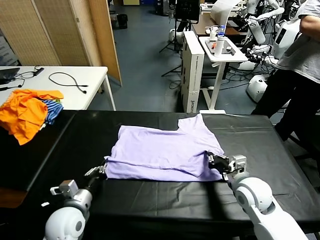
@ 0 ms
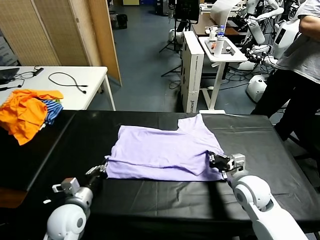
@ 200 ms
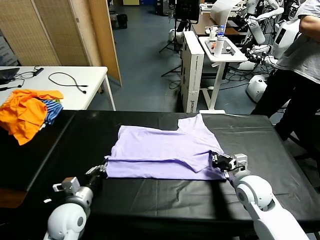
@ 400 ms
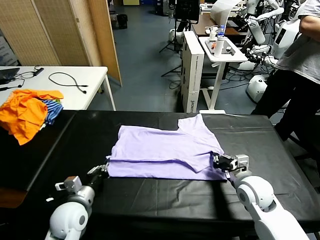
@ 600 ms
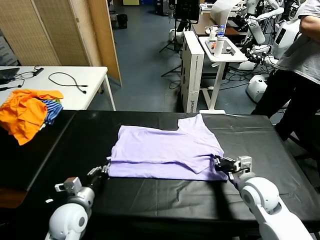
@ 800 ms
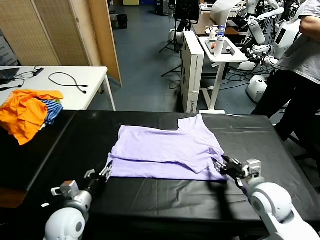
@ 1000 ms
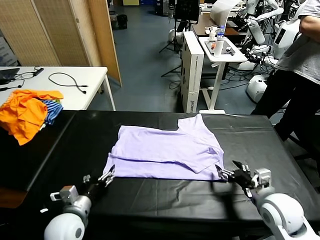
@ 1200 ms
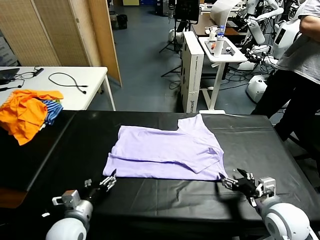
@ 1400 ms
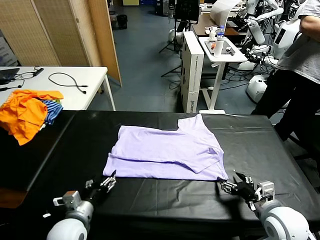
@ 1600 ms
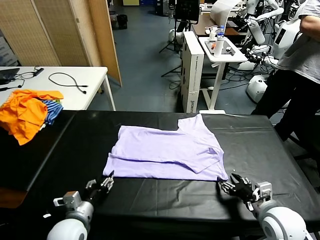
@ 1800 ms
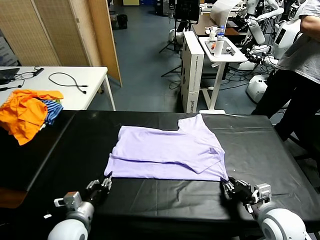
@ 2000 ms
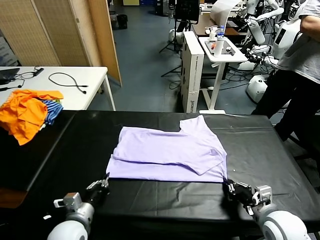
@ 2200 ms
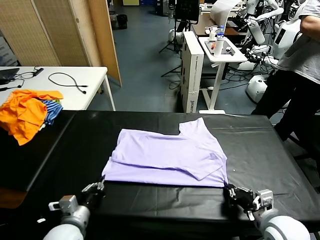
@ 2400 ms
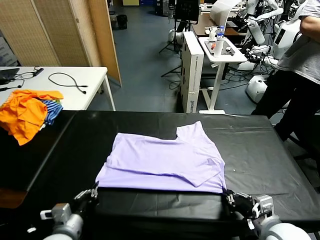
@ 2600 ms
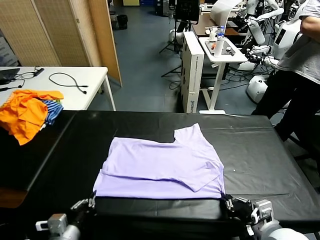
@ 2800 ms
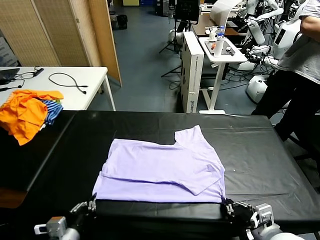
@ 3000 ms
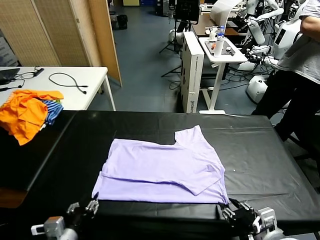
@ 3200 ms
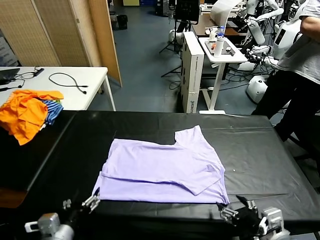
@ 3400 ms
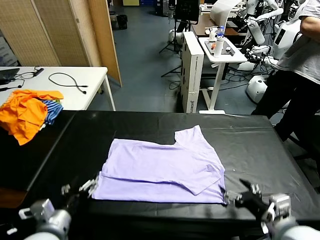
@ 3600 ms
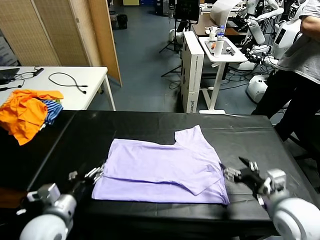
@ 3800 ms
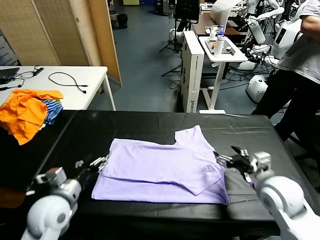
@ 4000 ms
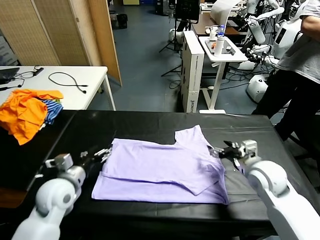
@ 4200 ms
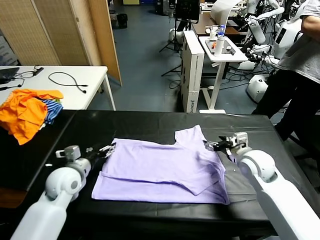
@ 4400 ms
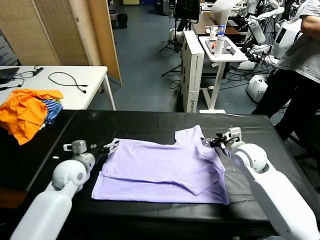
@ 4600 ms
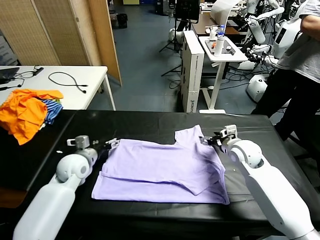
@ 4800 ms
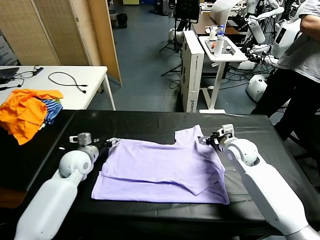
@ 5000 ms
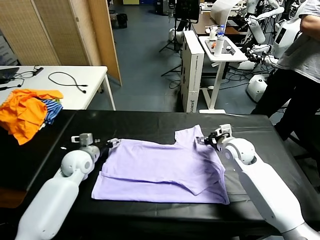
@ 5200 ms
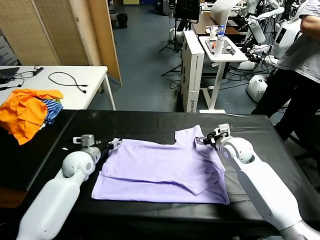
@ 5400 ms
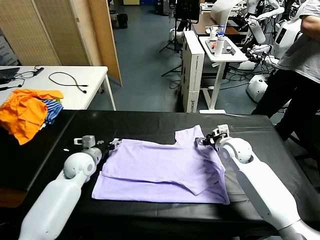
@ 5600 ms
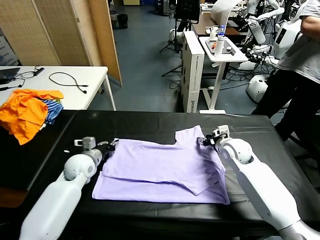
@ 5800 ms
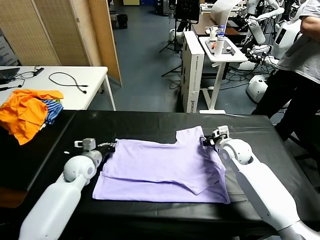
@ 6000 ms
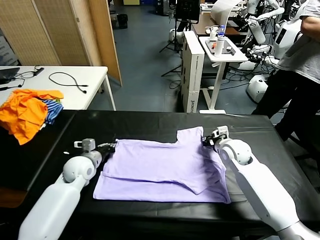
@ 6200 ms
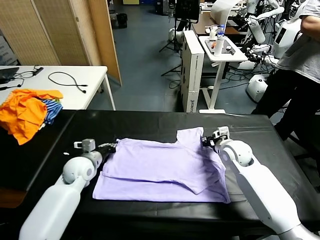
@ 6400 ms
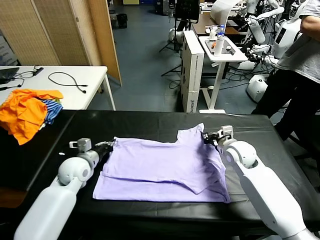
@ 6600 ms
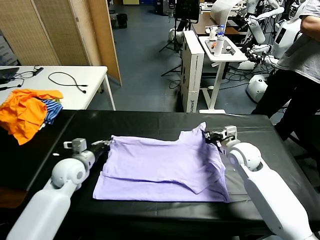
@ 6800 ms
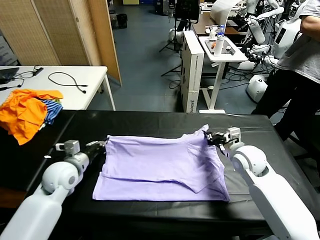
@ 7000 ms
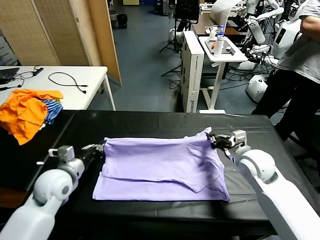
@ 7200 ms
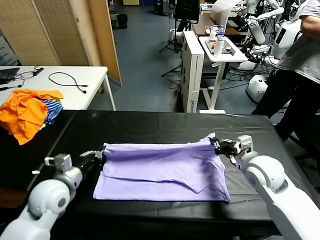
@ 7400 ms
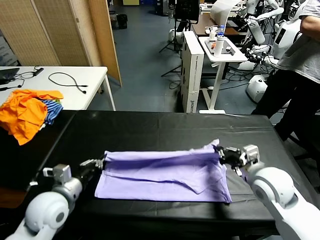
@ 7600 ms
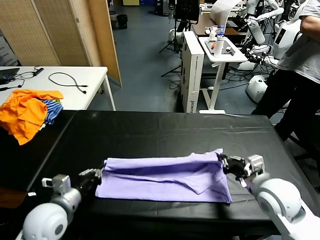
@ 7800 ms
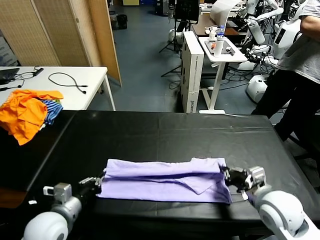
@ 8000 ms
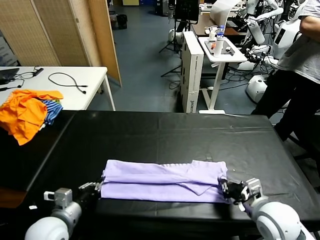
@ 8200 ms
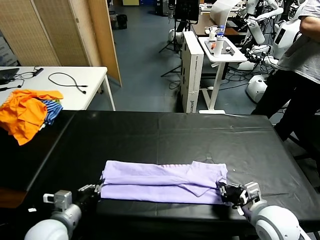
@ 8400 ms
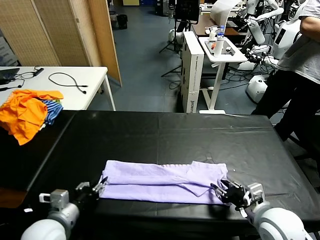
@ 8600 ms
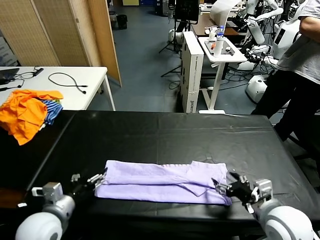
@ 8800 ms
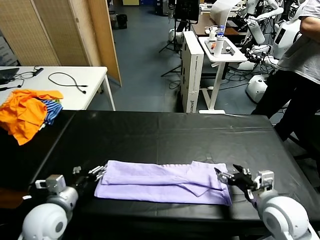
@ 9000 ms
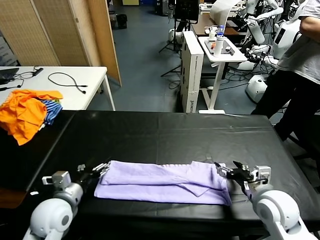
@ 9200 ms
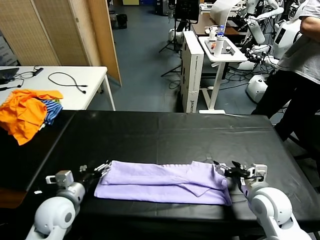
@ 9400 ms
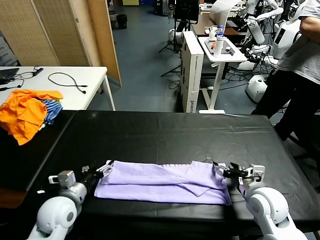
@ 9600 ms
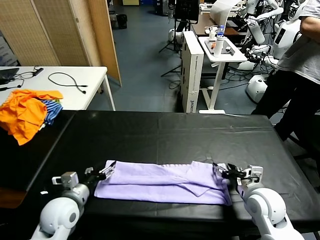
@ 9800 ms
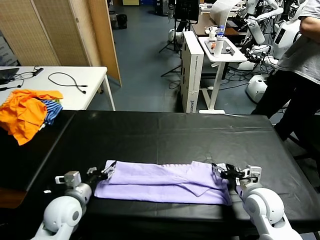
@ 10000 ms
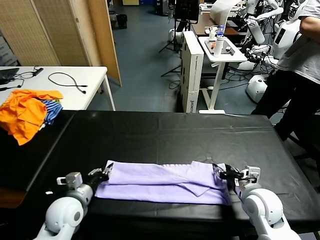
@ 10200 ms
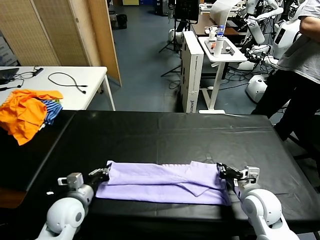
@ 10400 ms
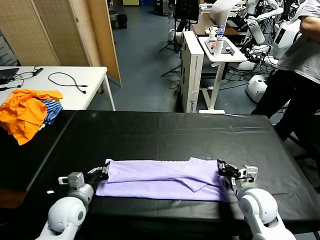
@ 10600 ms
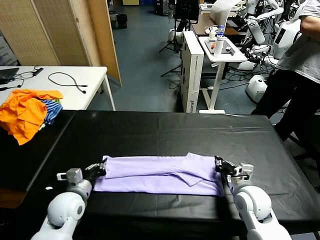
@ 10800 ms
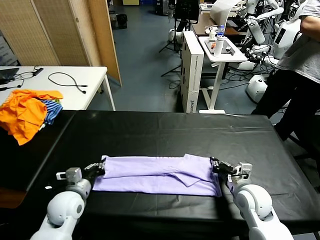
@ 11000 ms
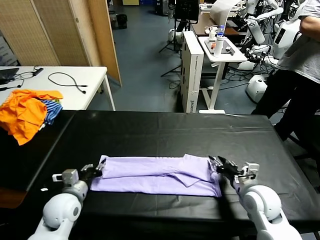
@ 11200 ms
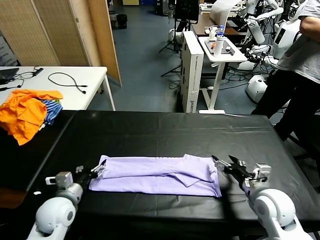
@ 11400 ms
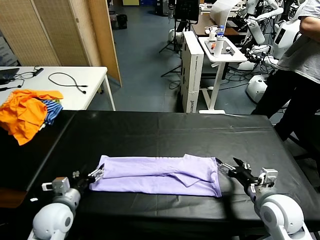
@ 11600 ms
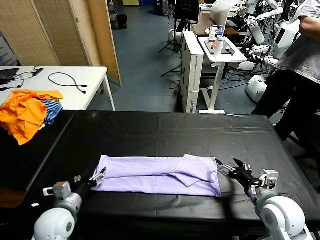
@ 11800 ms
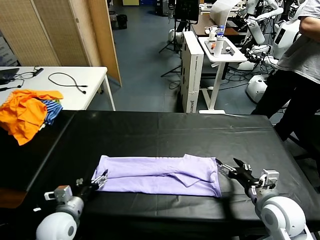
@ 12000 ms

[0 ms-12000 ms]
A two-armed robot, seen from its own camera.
Task of the whole recording: fold and organize the clothes.
Step, 1200 ms to 3400 ms: Drag the clothes downward with both gripper.
Step, 3600 ms to 6000 ms: use both grippers simultaneously to clamp the upper edge of the clothing fabric.
Step, 6200 ms to 11400 ms: use both grippers to drag the upper edge of the fabric backward and fold it over the lower edge.
0 ms to 1600 ms: The left gripper opens up; the right gripper goes some 10 cm backward and to the right, and opens.
1600 ms to 3000 ms: The two grippers go about 10 cm backward. The left gripper closes up. The right gripper closes, then reopens.
3000 ms to 4400 ms: The grippers both shift forward by roughly 25 cm. The left gripper opens up. Meanwhile the right gripper opens.
4400 ms to 6000 ms: The two grippers go some 5 cm forward. The right gripper closes up; the left gripper closes up.
6000 ms to 7600 ms: The grippers both shift backward and upward by some 15 cm.
7600 ms to 9000 ms: The right gripper shifts roughly 10 cm backward, and opens. Meanwhile the left gripper opens.
9000 ms to 10400 ms: The right gripper travels forward and downward by roughly 10 cm, and closes its fingers, while the left gripper travels downward by about 5 cm, and closes its fingers.
10400 ms to 12000 ms: The right gripper changes place by roughly 5 cm, and opens. The left gripper opens.

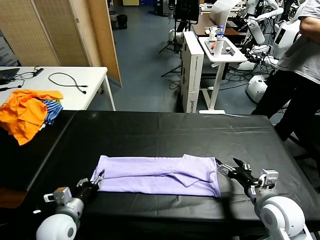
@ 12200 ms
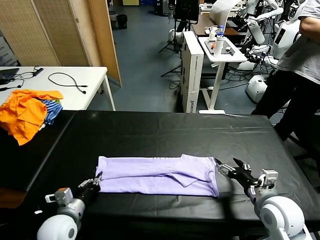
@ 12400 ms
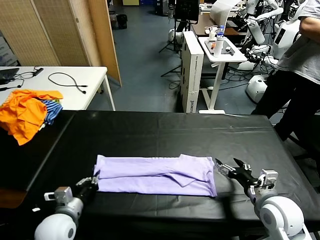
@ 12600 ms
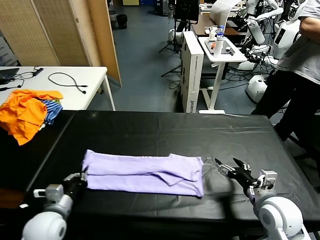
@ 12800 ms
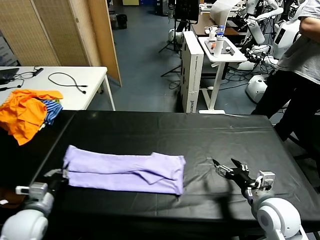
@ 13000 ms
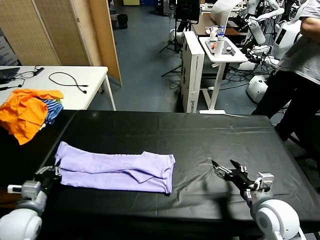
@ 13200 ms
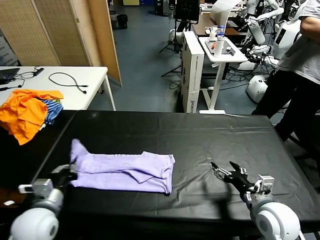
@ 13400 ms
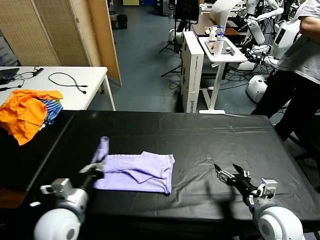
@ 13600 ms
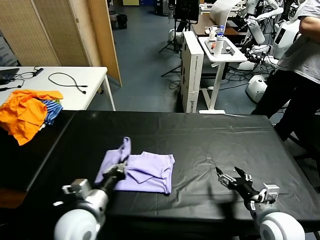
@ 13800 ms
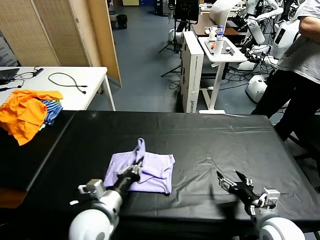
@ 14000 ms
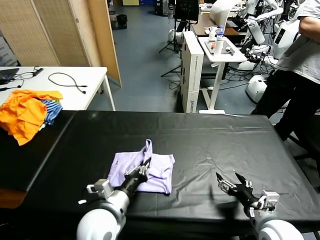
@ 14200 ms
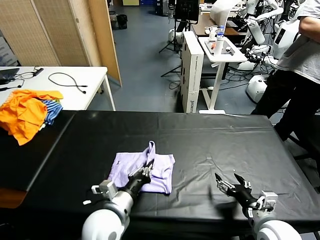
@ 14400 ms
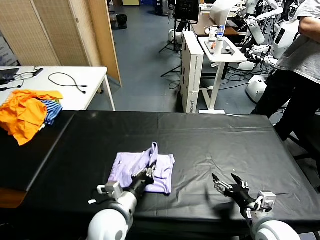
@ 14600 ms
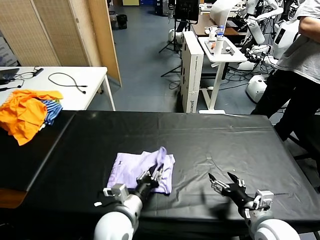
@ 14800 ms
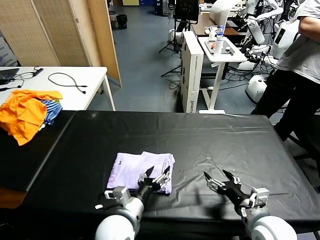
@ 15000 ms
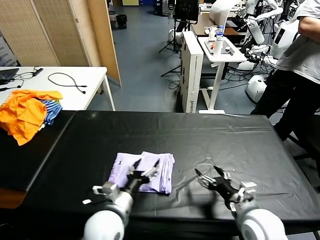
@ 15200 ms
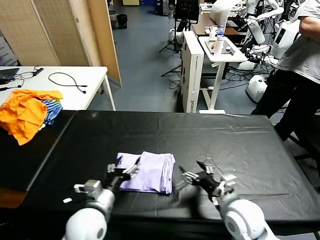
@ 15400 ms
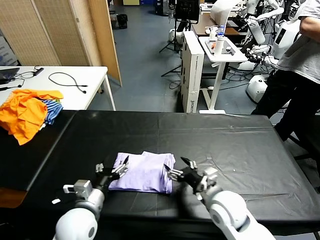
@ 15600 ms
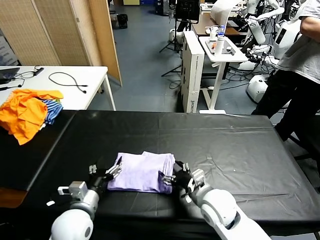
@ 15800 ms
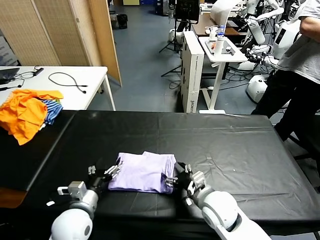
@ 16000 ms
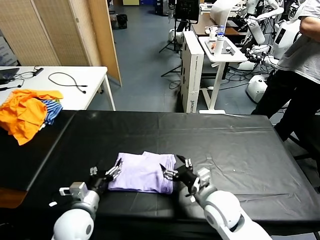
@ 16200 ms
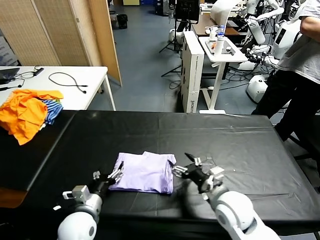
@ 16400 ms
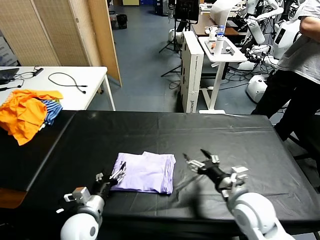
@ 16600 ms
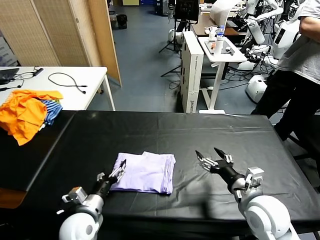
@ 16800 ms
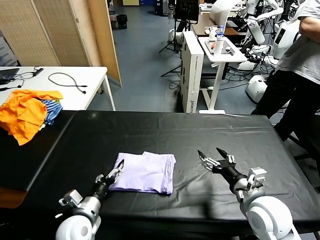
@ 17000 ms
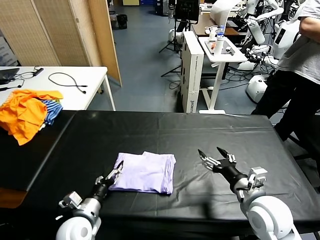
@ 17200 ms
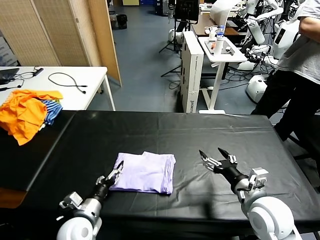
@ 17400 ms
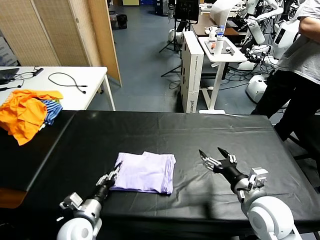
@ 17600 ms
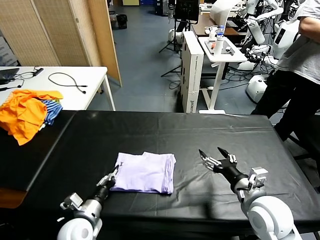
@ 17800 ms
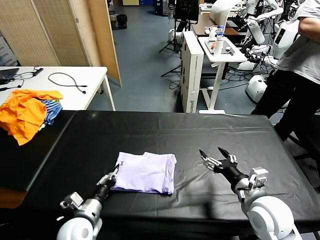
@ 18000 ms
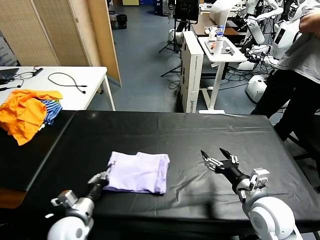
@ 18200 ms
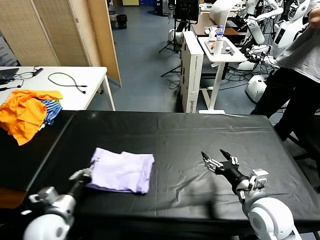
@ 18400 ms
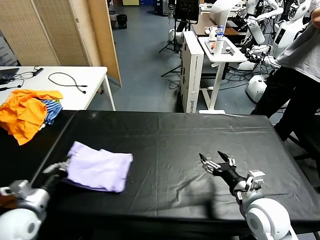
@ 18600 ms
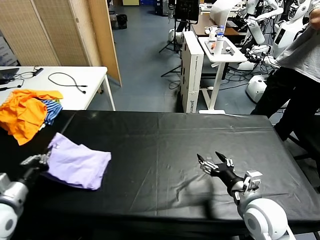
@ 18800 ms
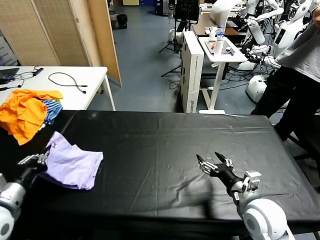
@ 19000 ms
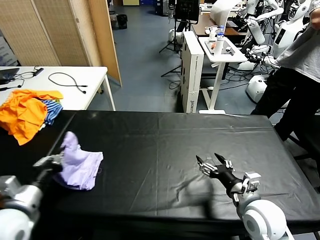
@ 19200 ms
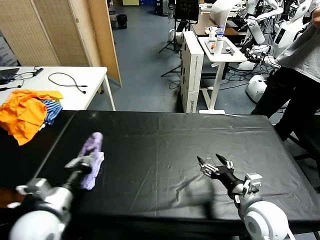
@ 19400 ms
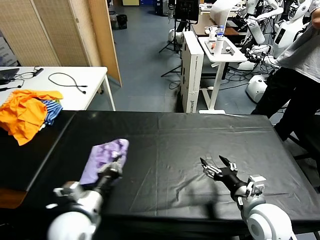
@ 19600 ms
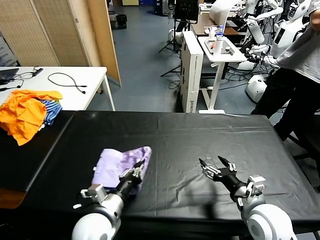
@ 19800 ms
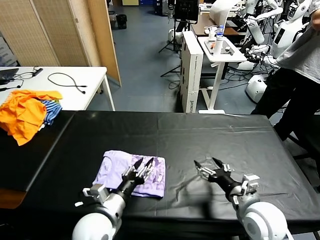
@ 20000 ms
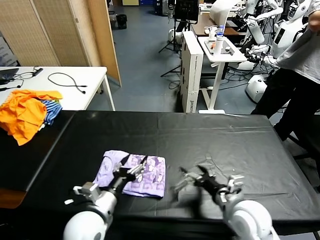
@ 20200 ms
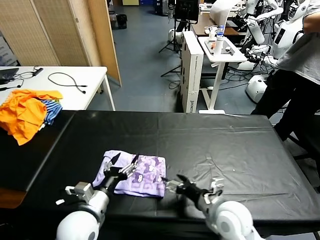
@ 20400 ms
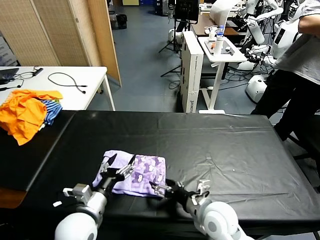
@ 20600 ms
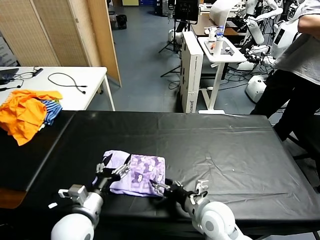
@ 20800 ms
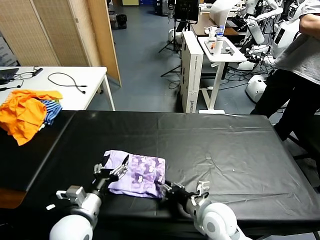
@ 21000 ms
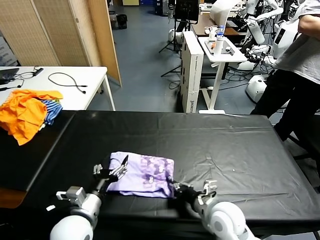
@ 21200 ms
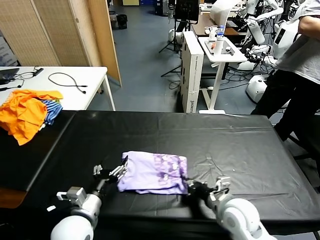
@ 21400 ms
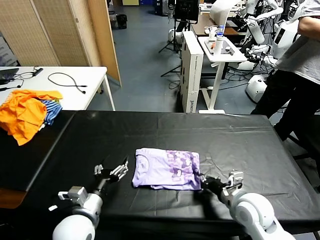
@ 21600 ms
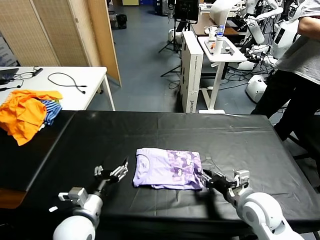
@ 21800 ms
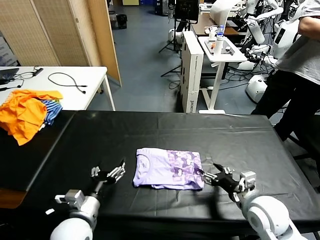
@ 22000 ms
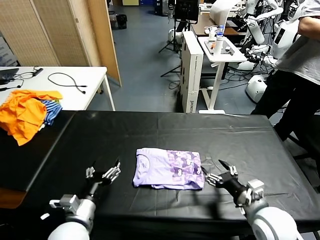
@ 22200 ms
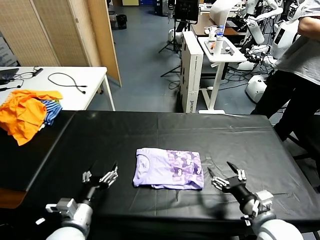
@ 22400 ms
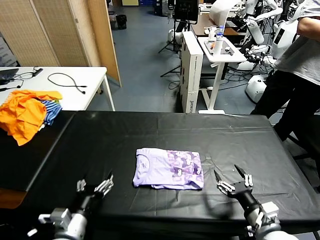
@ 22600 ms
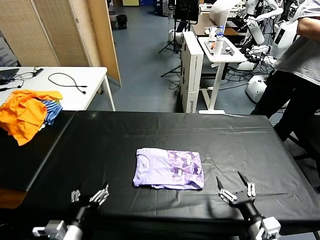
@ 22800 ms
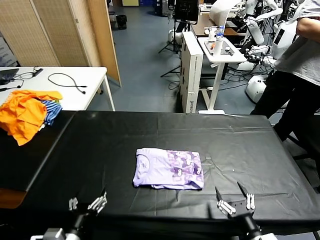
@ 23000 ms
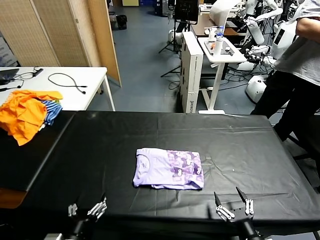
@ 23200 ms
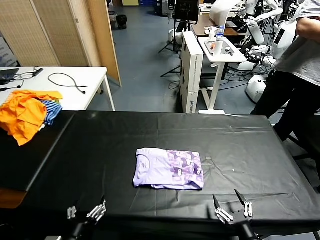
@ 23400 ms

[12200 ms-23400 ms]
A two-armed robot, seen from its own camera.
Task of the whole recording: fold and organize the clothes.
Step, 12400 ms to 16200 ms: use the left gripper to drag the left edge of the fabric to the left and folds it over the right edge.
Step, 16400 ms to 20000 ms: Flip the folded clothes over with left gripper.
Step, 20200 ms to 22000 ms: Drag the clothes to the center of the table.
12200 ms to 13800 ms: The left gripper heads to the right and upward, covering some 10 cm, and closes, while the right gripper changes place by roughly 5 cm.
13800 ms to 15400 ms: The right gripper shifts approximately 15 cm to the left and forward. The left gripper travels to the right and back again, roughly 10 cm each way, and opens.
15400 ms to 17000 ms: The left gripper is displaced to the left and downward by approximately 10 cm. The right gripper heads to the right, covering approximately 10 cm.
17000 ms to 18600 ms: The left gripper shifts roughly 15 cm to the left and upward, and closes its fingers.
18600 ms to 20200 ms: The right gripper changes place by about 5 cm. The left gripper goes some 20 cm to the right, and opens up.
20200 ms to 21800 ms: The right gripper shifts some 5 cm to the right, and closes up.
21800 ms to 23400 ms: Both grippers travel together backward, some 15 cm. The right gripper opens up.
